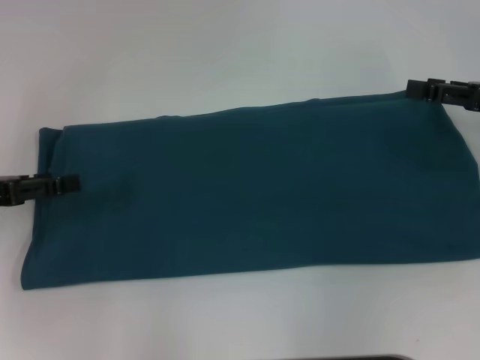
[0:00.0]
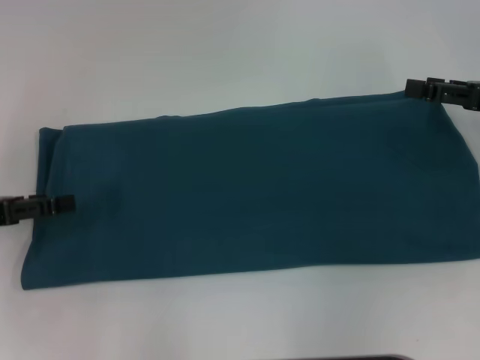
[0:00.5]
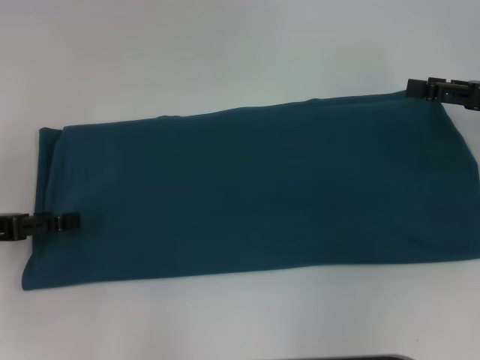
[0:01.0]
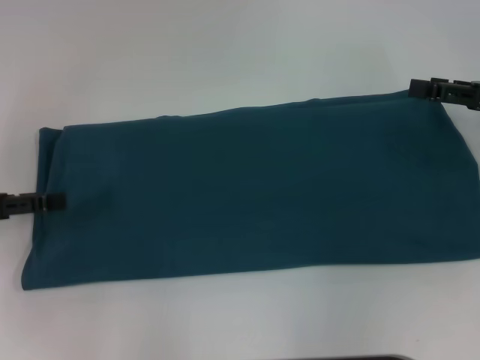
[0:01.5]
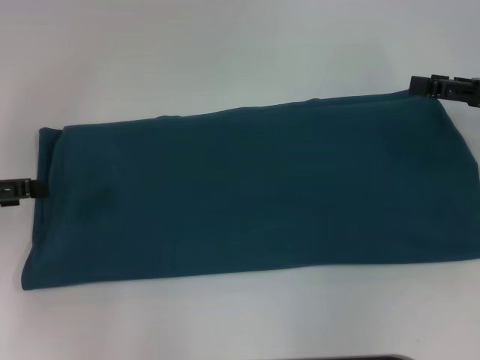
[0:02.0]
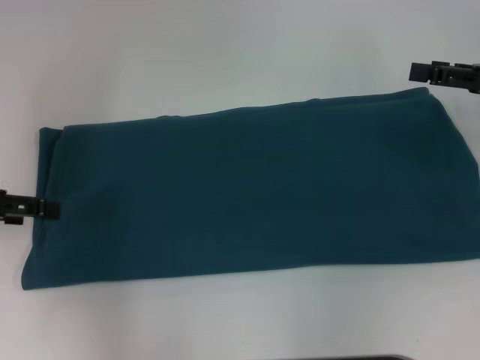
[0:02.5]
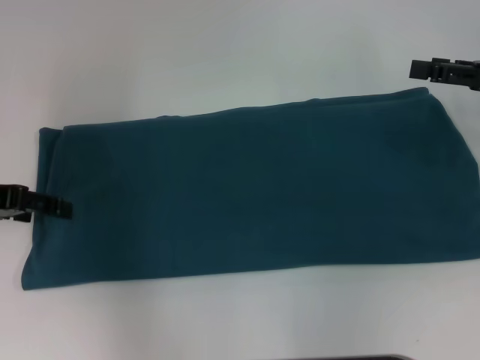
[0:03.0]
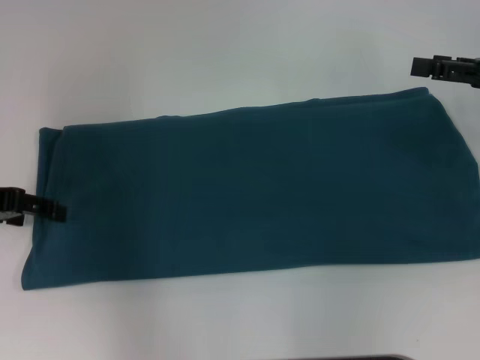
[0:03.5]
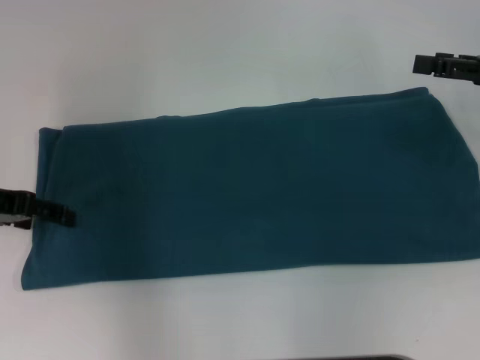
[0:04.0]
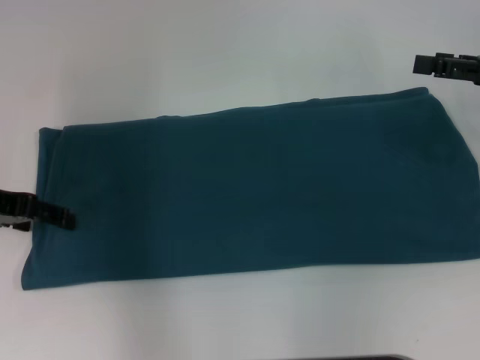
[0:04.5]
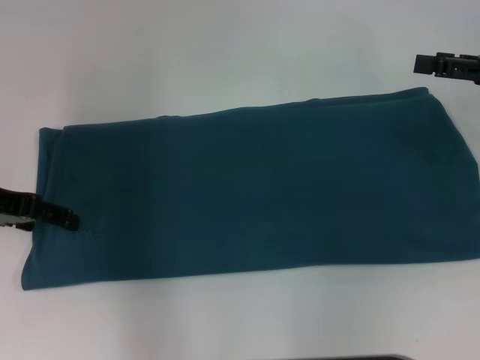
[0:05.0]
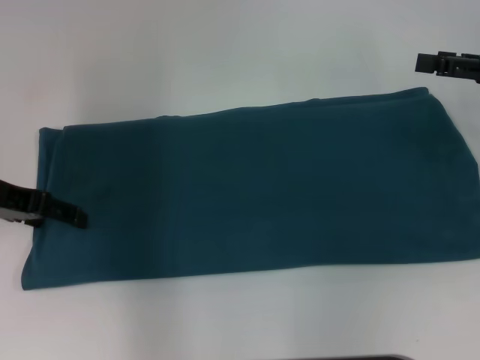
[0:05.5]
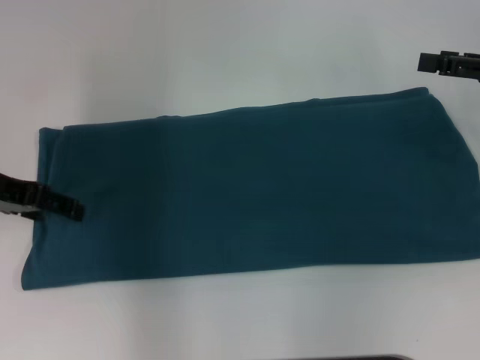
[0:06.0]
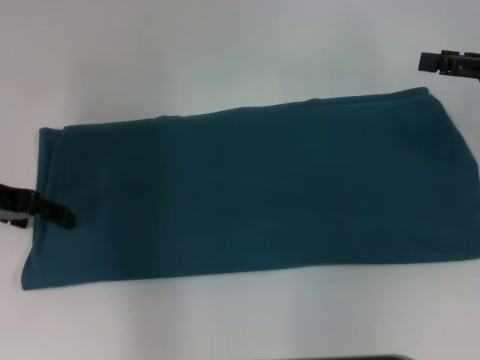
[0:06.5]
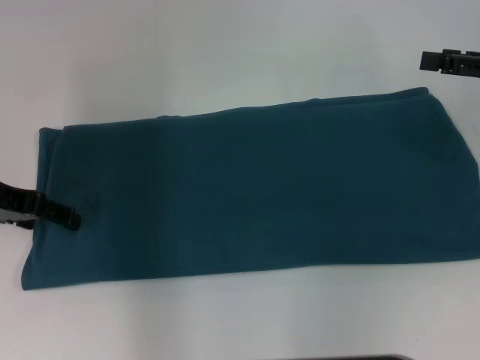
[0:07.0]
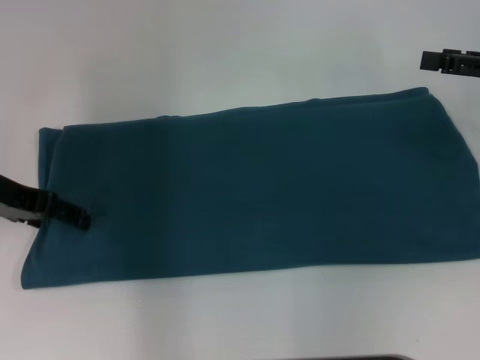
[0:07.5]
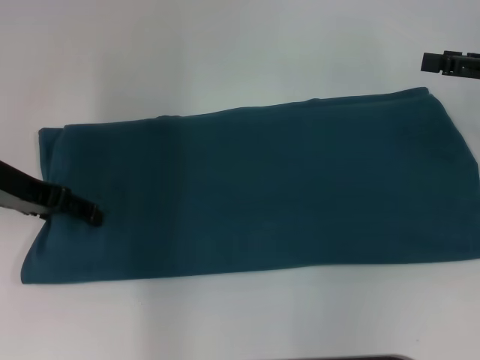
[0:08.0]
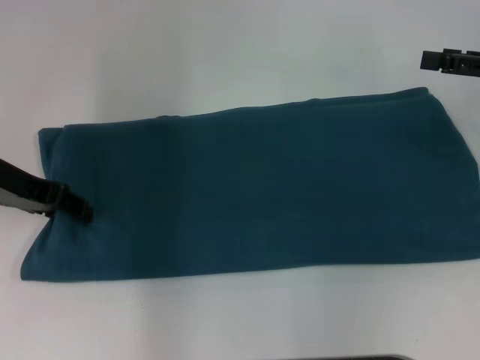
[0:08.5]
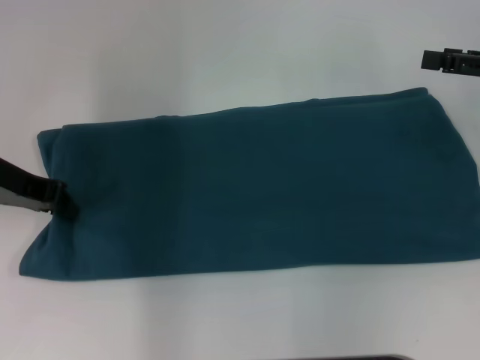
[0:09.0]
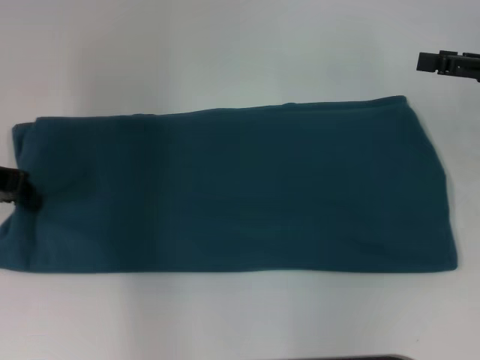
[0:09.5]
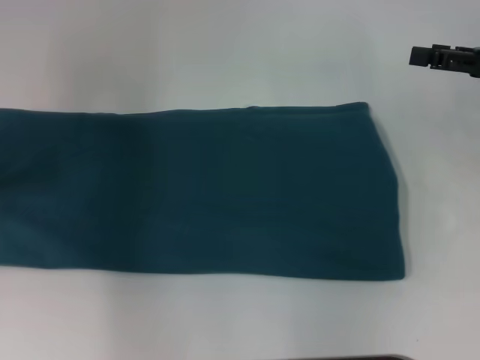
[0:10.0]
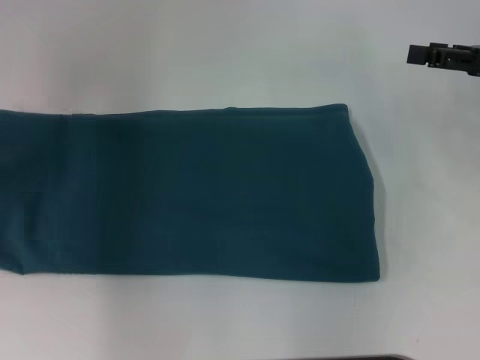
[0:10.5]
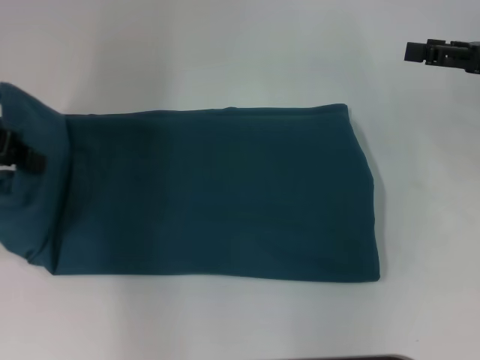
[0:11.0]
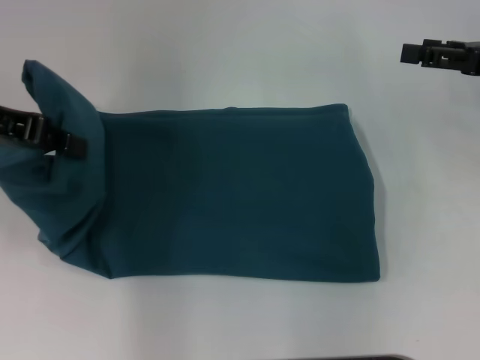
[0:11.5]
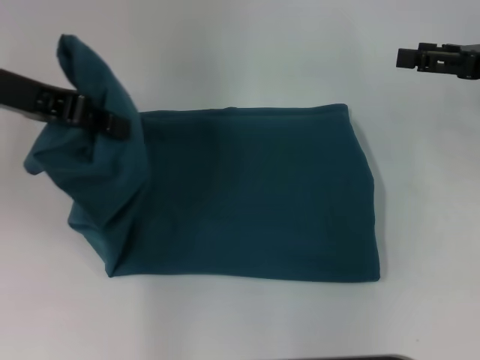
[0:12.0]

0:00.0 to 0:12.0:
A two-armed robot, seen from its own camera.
0:00.0 to 0:02.0: There are only small adjustments of the grippers.
0:02.0 to 0:04.0: The left gripper goes roughly 5 cm to the right.
0:04.0 to 0:08.0: There are only small adjustments of the grippers.
0:08.0 to 0:10.0: The left gripper moves to the left, approximately 10 cm, and closes its fingers.
0:10.0 to 0:12.0: The left gripper goes about 10 cm to the right and upward.

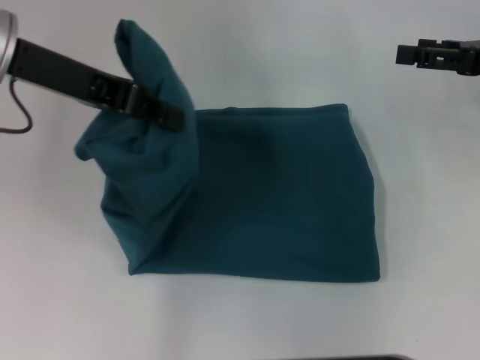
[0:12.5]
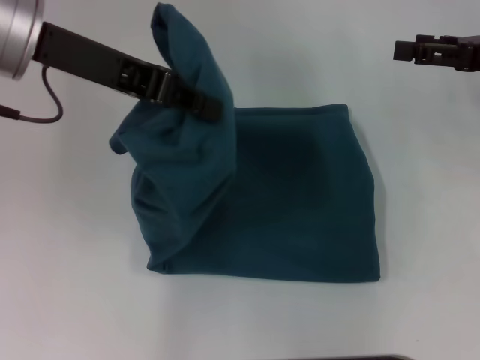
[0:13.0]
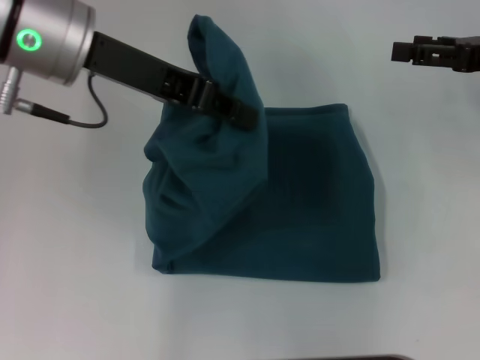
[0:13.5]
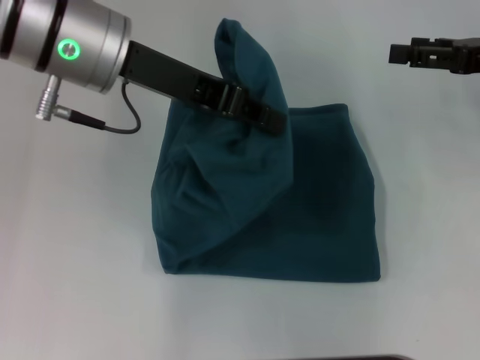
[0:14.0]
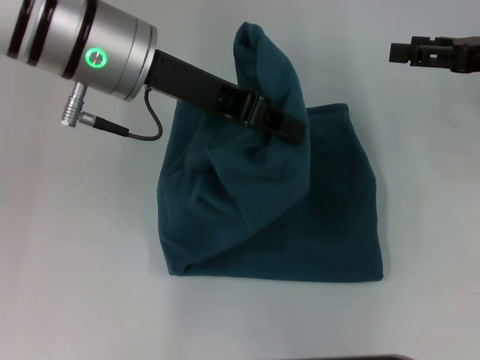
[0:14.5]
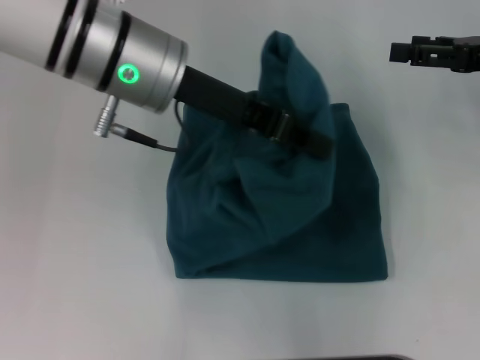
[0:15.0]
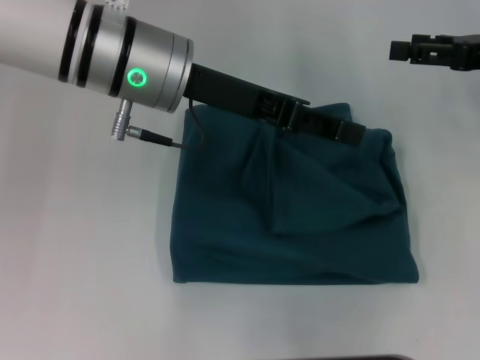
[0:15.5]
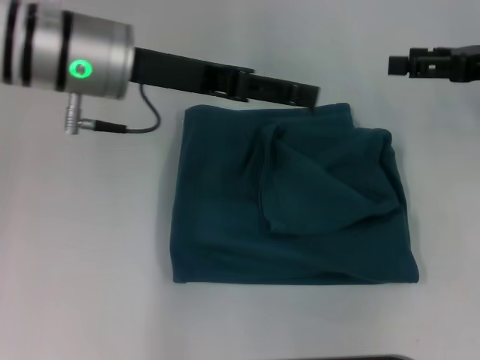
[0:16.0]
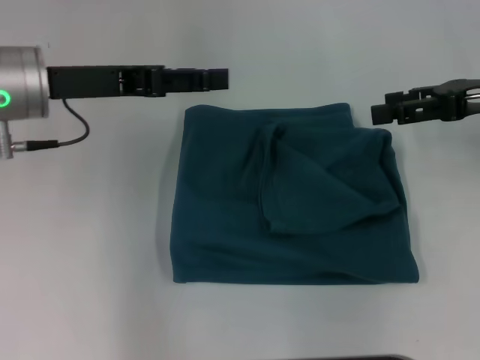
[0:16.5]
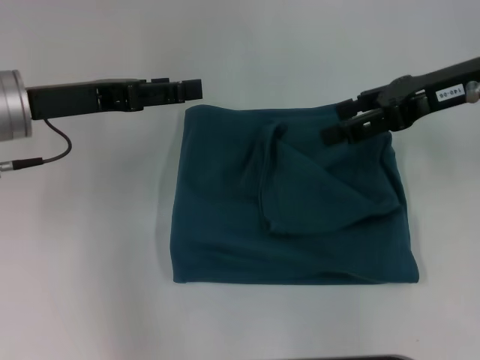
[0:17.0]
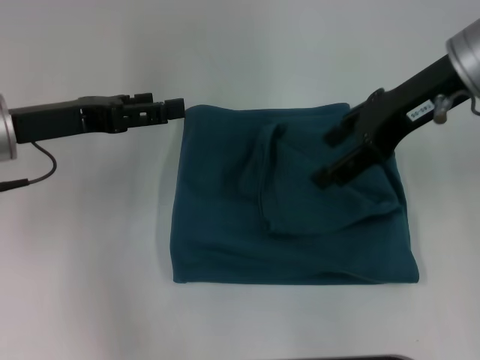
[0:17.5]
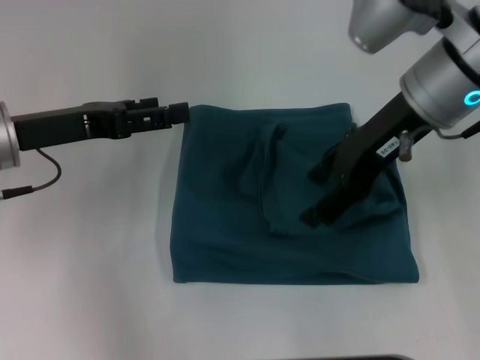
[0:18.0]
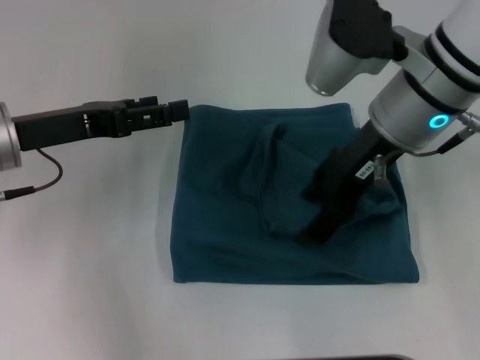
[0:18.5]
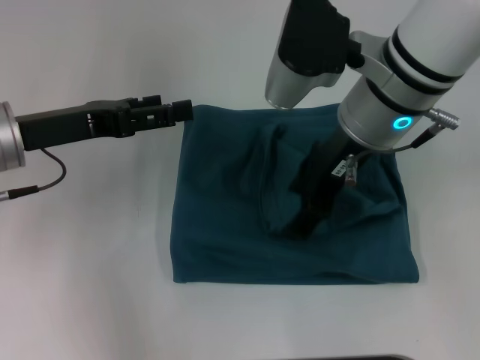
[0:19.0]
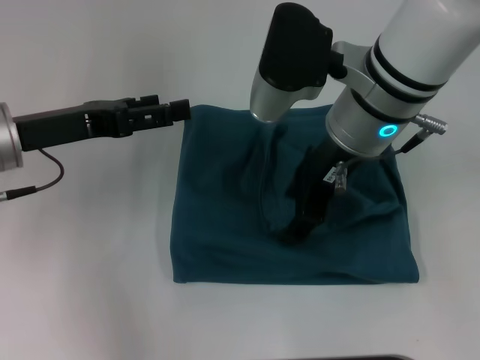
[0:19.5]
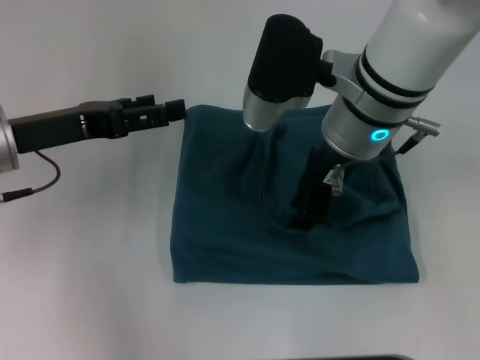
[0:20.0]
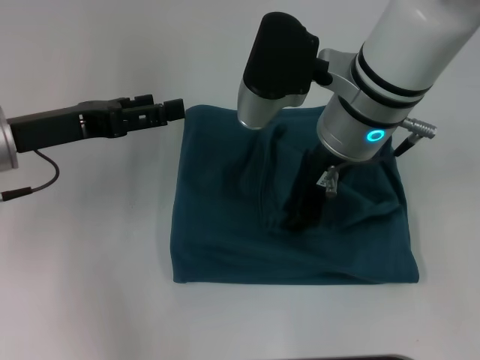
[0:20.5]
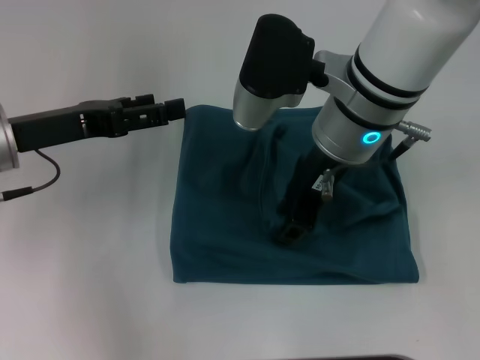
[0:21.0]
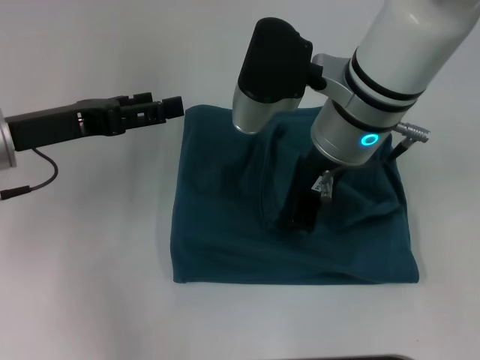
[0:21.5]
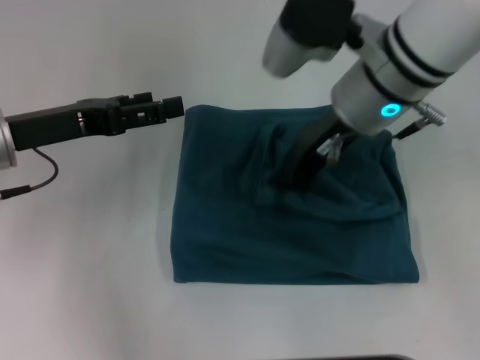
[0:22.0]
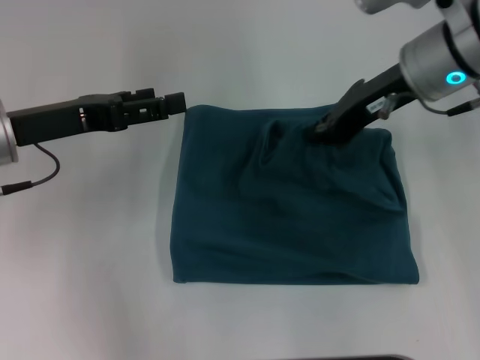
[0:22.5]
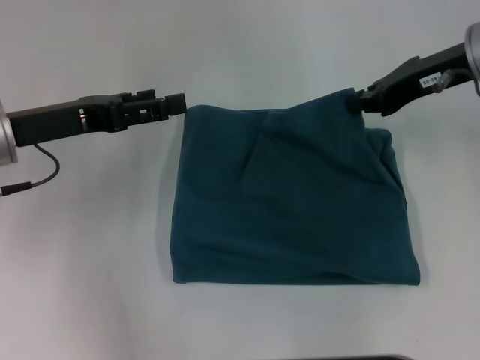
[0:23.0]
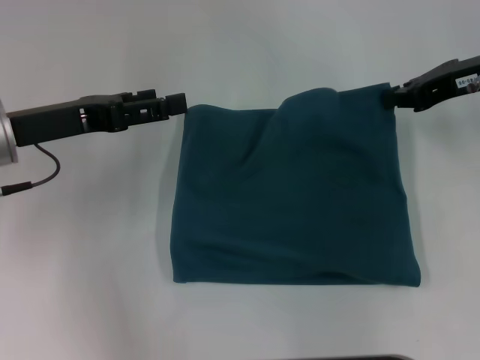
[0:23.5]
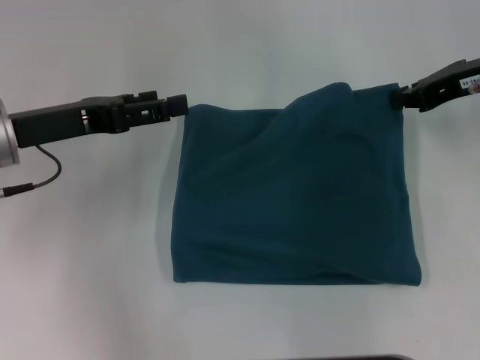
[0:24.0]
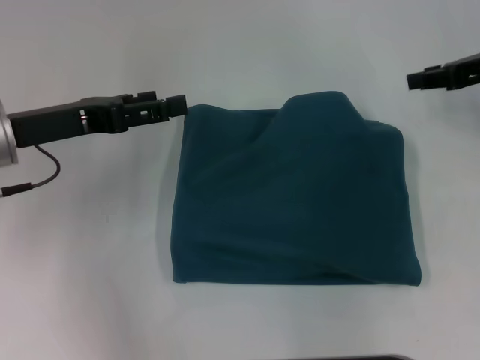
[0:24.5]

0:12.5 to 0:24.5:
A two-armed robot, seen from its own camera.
Step, 0:12.5 to 0:15.5: Fold the clothes to the left.
0:12.5 to 0:14.5: The left gripper heads to the right, covering roughly 10 cm.
0:14.5 to 0:16.5: The left gripper travels to the left and downward by approximately 10 cm, and opens its fingers.
0:16.5 to 0:18.5: The left gripper shifts by some 5 cm. Meanwhile the right gripper moves to the left, roughly 20 cm.
0:18.5 to 0:20.5: The right gripper closes its fingers.
0:20.5 to 0:22.5: The right gripper is displaced to the right by some 10 cm, and opens, then closes once more.
0:22.5 to 0:24.5: The right gripper heads to the right, covering roughly 15 cm.

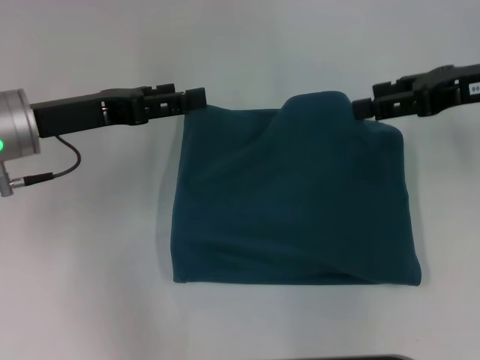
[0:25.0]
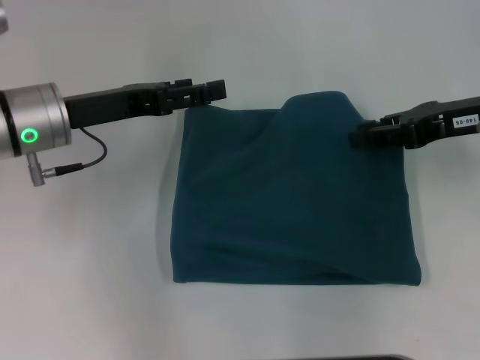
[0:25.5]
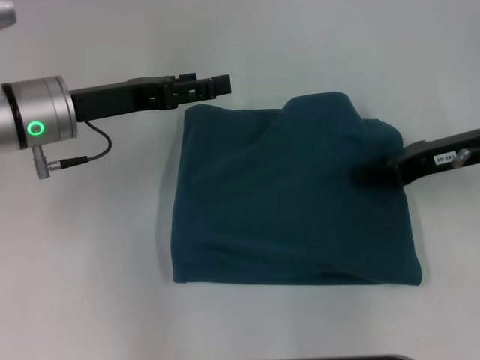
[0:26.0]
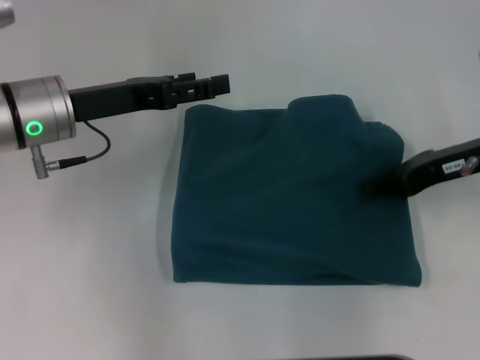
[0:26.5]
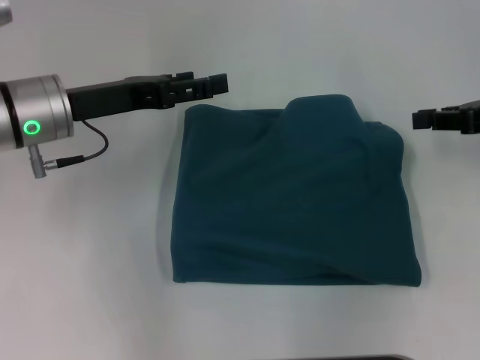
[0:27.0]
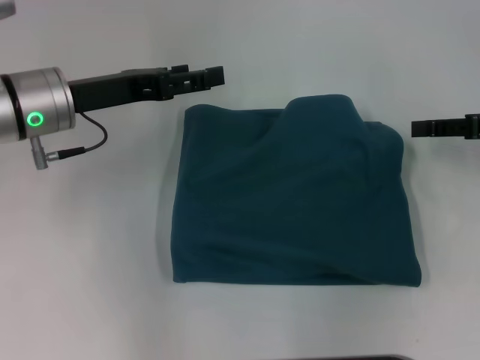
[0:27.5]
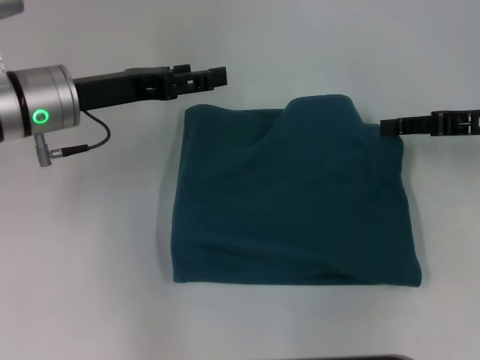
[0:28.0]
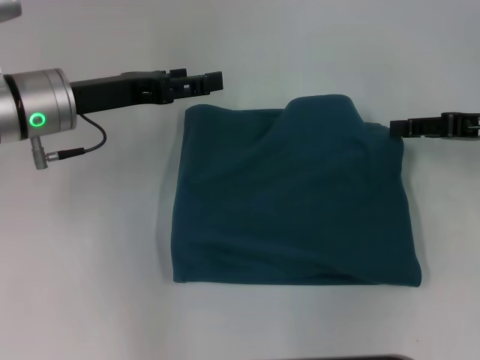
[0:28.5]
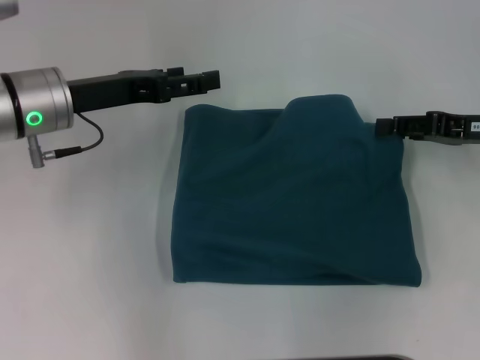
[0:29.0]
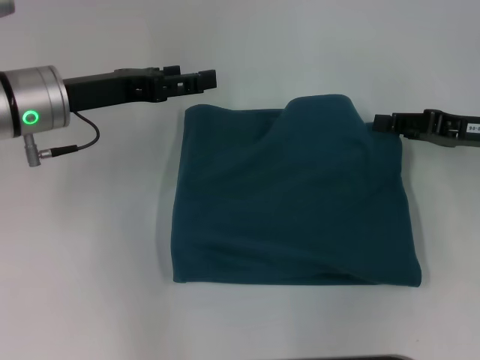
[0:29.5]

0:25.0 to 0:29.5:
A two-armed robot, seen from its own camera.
0:25.0 to 0:27.0: The right gripper moves to the right, roughly 5 cm, and closes its fingers.
0:27.0 to 0:29.5: The right gripper goes roughly 5 cm downward.
